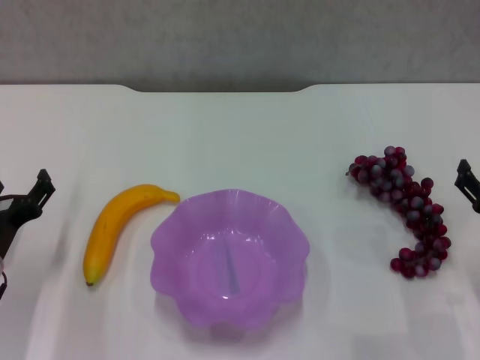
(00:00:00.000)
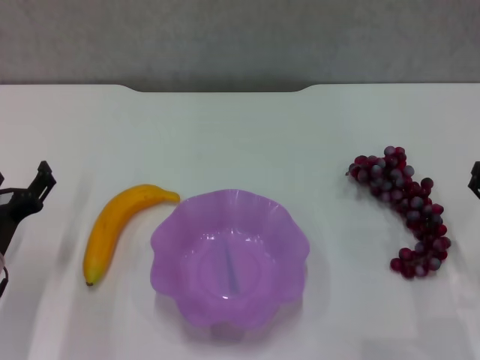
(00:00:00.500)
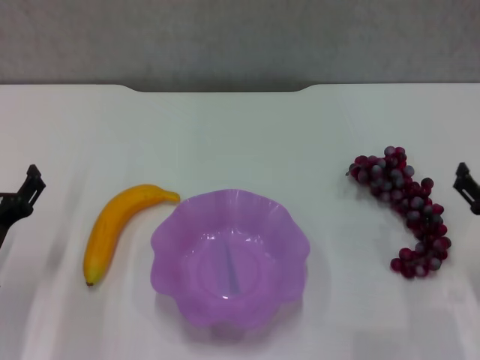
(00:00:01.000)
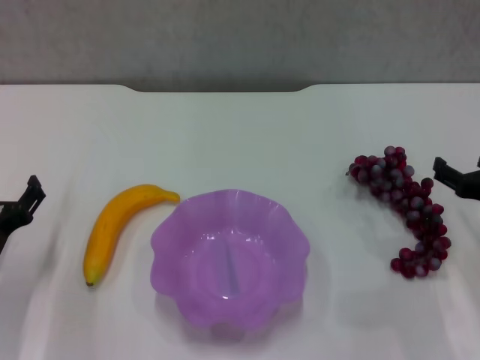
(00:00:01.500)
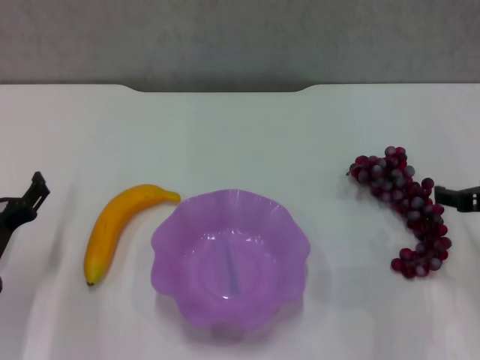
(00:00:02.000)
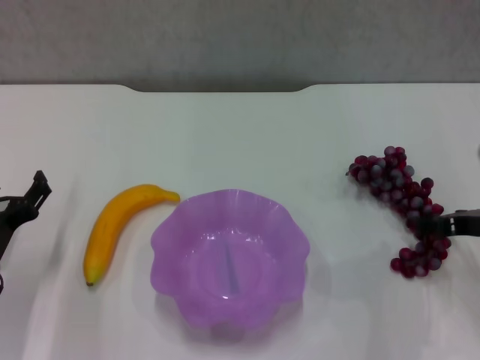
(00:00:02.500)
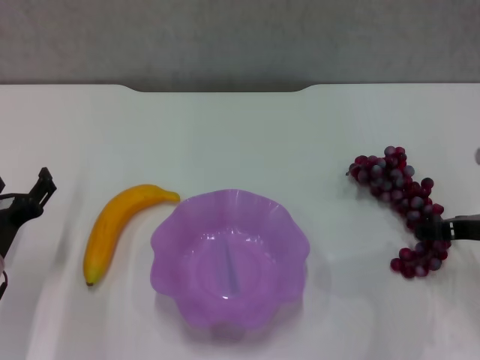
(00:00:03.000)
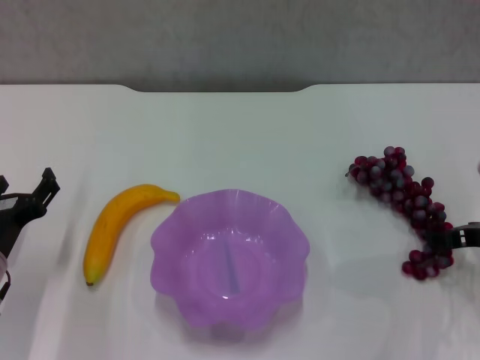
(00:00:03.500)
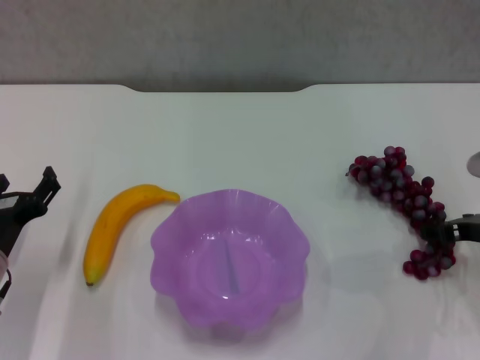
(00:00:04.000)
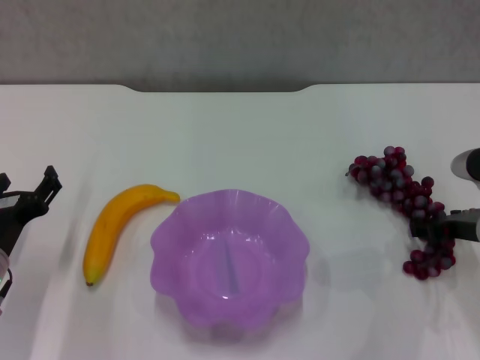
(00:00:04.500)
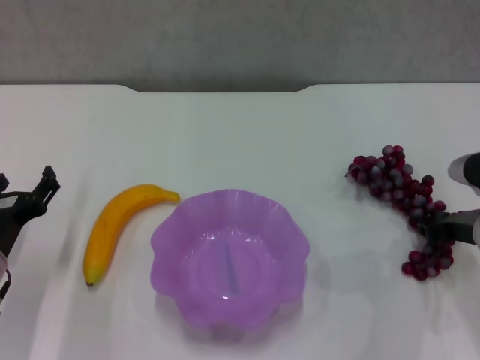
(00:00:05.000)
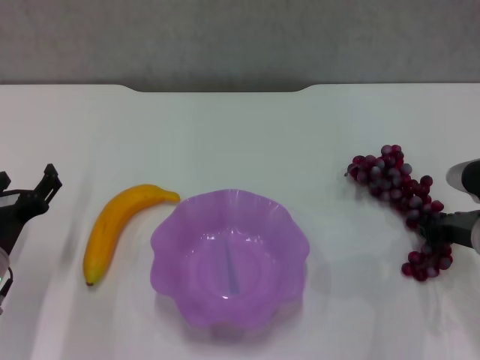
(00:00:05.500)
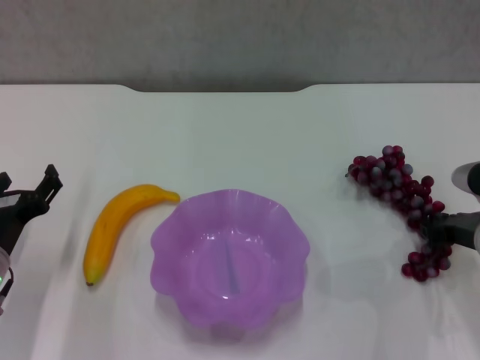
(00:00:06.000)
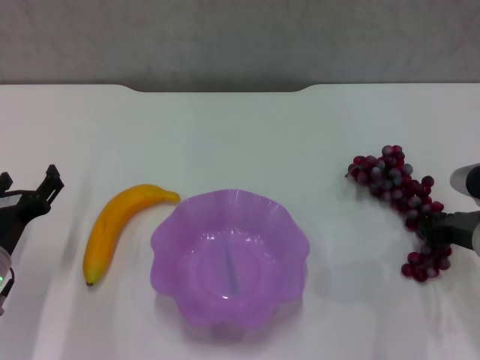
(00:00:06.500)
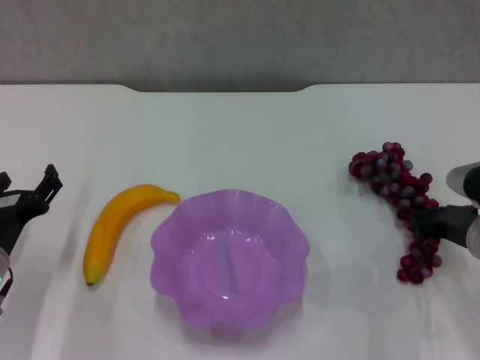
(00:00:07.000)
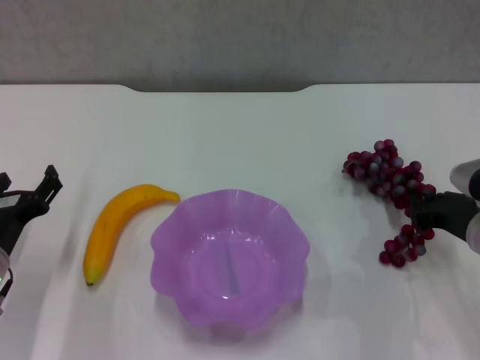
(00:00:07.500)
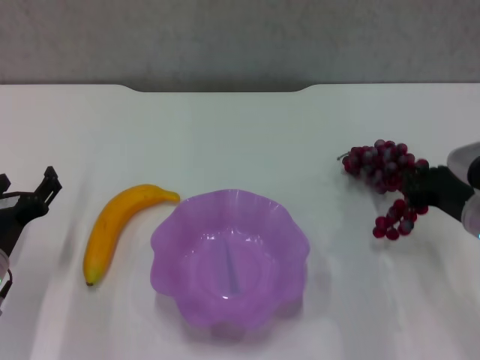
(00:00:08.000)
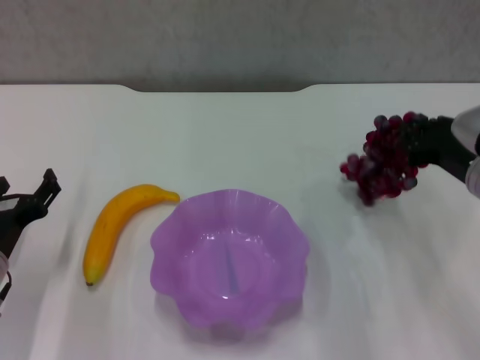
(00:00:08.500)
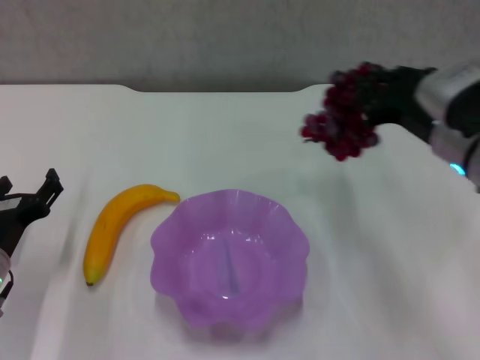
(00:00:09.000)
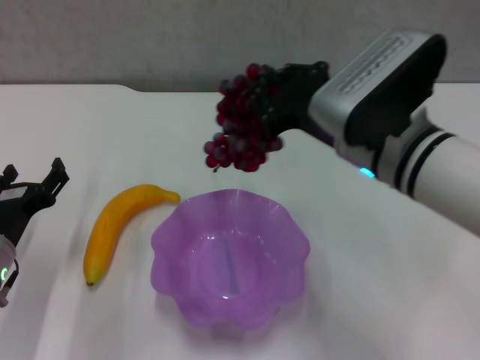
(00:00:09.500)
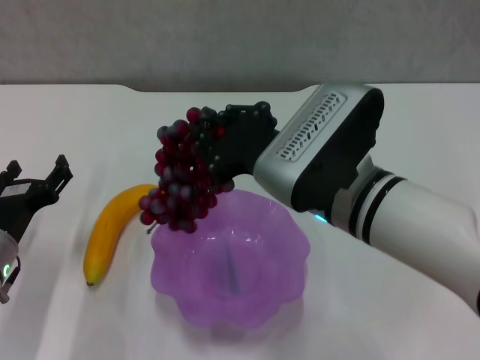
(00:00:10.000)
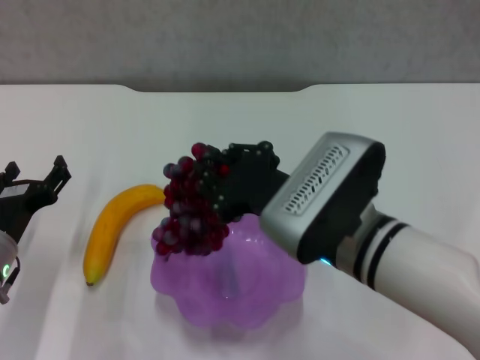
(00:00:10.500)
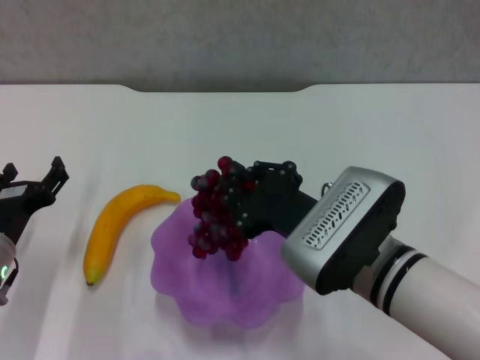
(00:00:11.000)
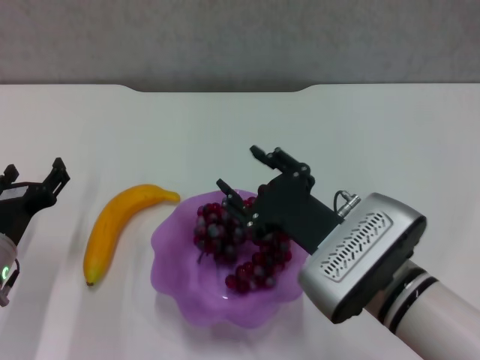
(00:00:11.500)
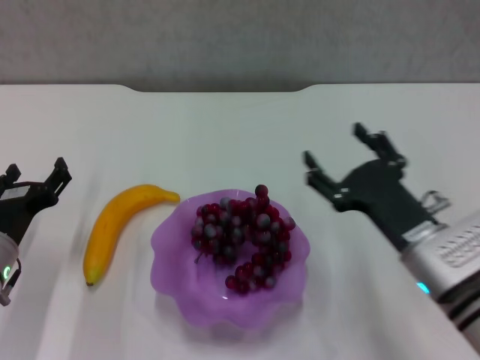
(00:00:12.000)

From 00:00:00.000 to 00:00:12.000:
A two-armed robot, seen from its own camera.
Step, from 00:00:00.000 to 00:00:06.000: Grasp the grape with right gripper.
Step, from 00:00:07.000 to 00:00:11.500: Place the grape in the purple plate with right gripper.
From 00:00:00.000 to 00:00:02.000: The right gripper shifts about 10 cm upward and forward.
From 00:00:02.000 to 00:00:04.000: The grippers move only a little.
From 00:00:04.000 to 00:00:06.000: The right gripper closes its fingers.
From 00:00:06.000 to 00:00:08.000: The grippers make only small movements.
From 00:00:08.000 to 00:00:10.000: The right gripper shifts about 20 cm to the left and upward.
From 00:00:10.000 to 00:00:12.000: The right gripper shifts about 15 cm to the right and downward, and opens its fingers.

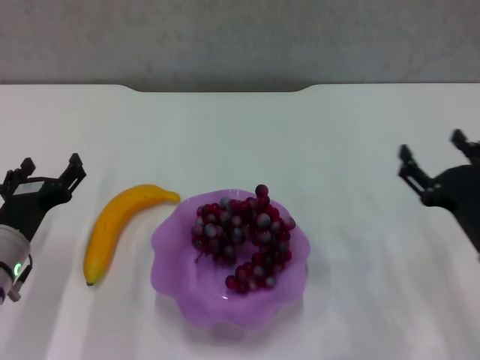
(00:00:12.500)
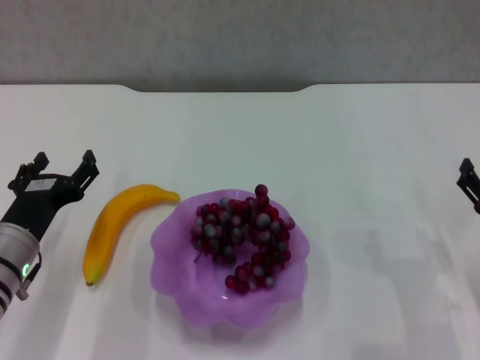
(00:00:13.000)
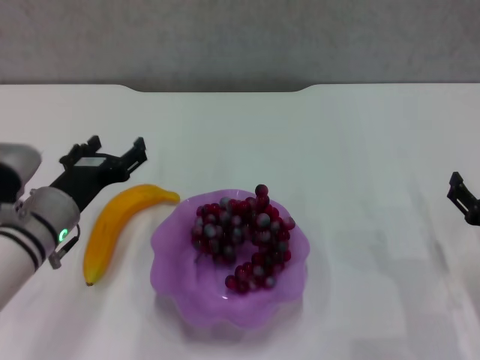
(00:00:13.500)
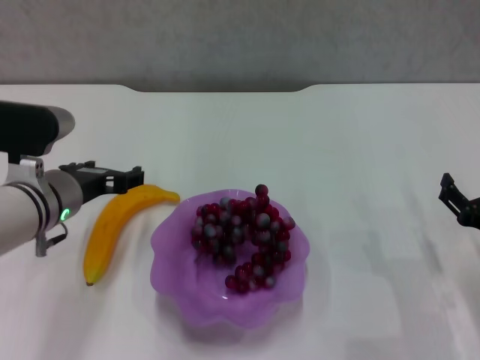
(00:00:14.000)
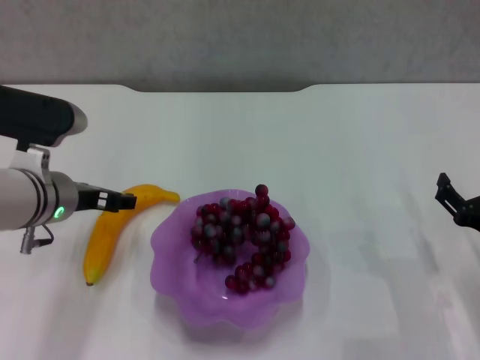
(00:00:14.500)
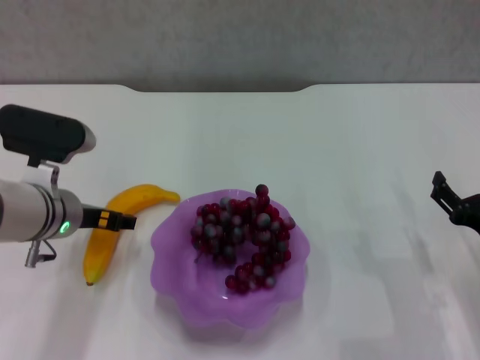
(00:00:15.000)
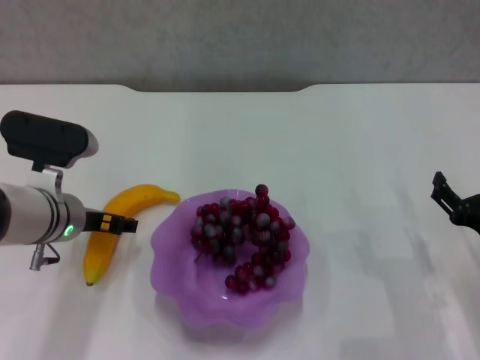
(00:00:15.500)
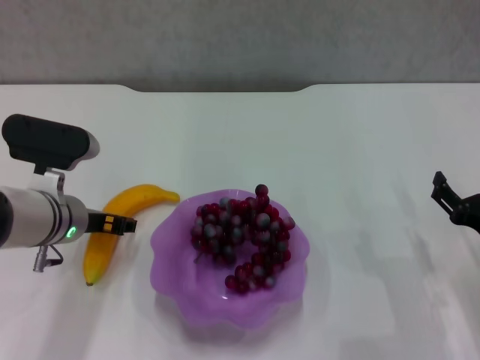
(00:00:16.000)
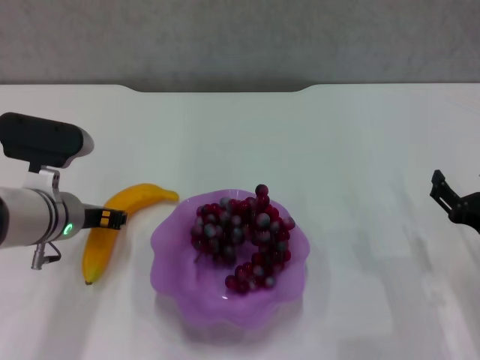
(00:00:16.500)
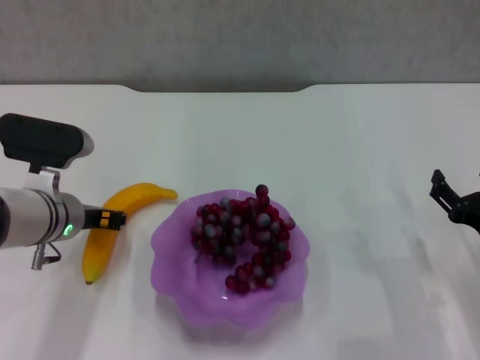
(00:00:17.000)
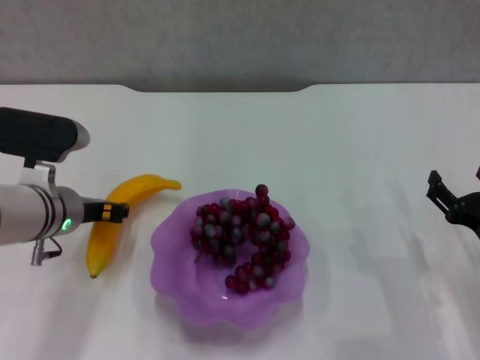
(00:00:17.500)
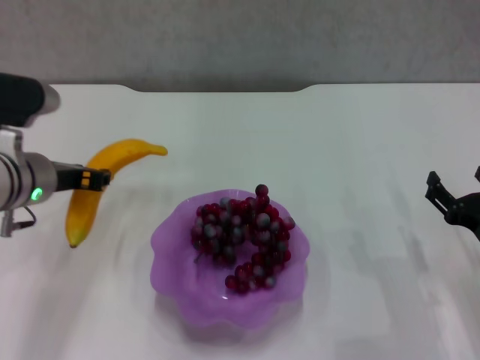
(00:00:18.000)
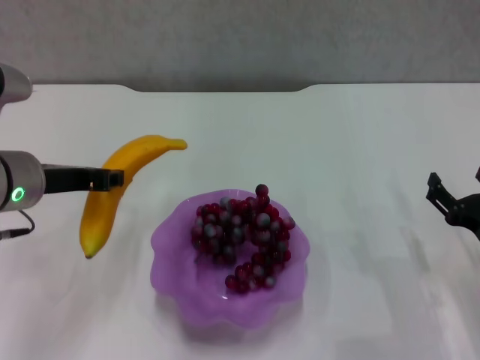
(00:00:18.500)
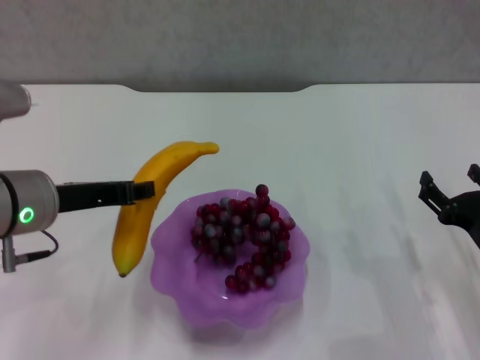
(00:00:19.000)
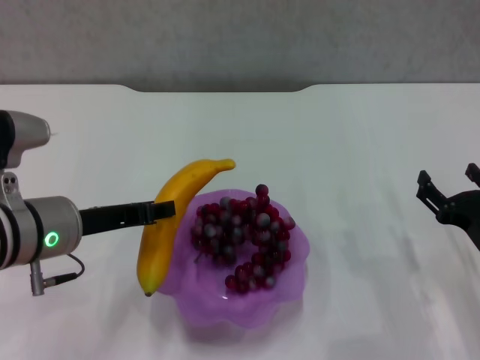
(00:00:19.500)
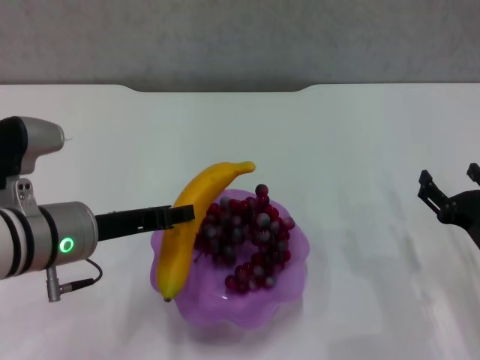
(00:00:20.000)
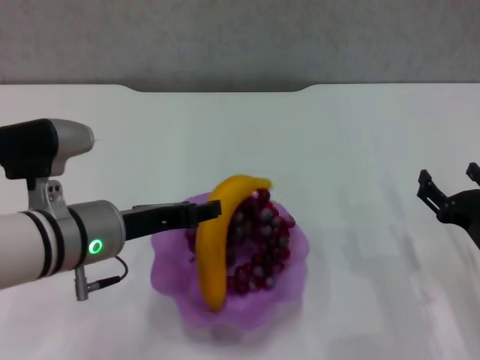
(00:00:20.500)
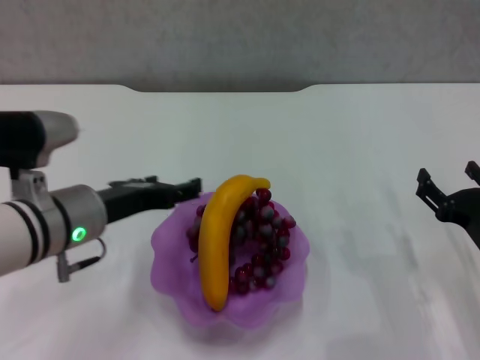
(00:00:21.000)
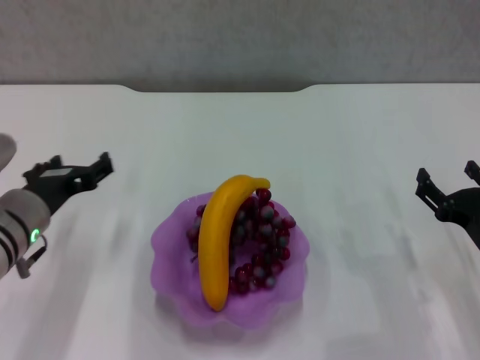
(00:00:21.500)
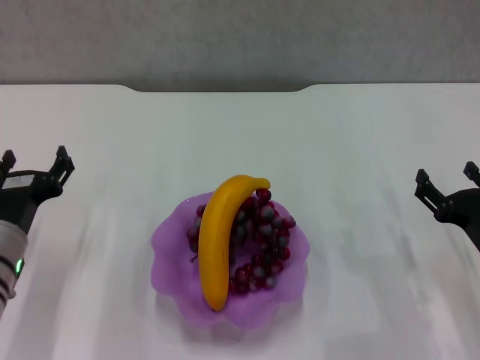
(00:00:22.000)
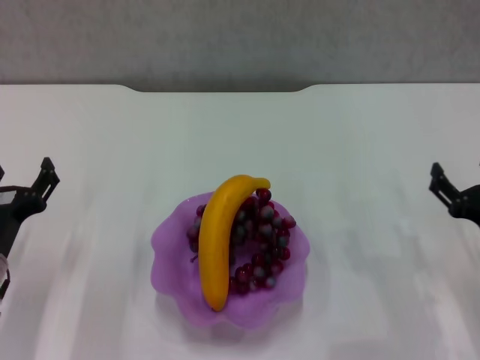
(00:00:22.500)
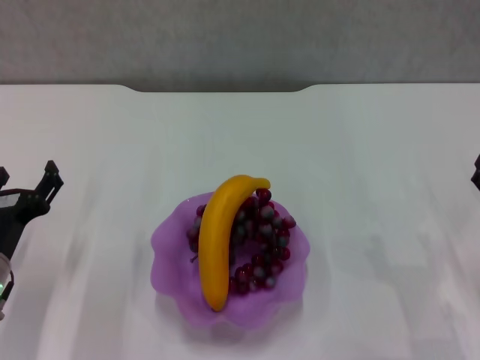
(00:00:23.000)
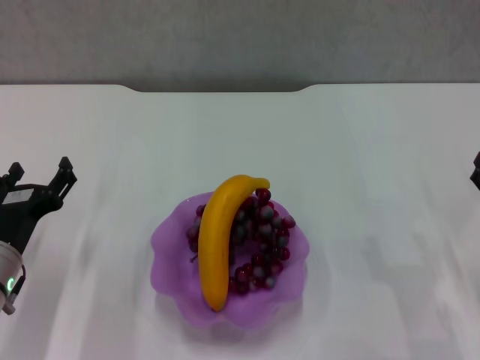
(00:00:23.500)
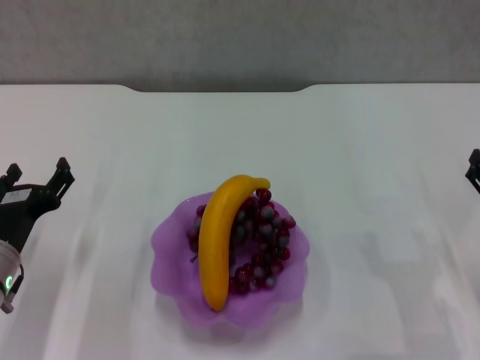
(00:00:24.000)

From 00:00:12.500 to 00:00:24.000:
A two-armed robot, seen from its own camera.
Step, from 00:00:12.500 to 00:00:16.500: Grasp the banana with left gripper.
Step, from 00:00:17.000 to 00:00:20.500: Place the banana in the purple plate with left gripper.
From 00:00:12.500 to 00:00:14.500: The left gripper goes some 10 cm upward, forward and to the right.
From 00:00:14.500 to 00:00:16.500: The left gripper closes its fingers.
From 00:00:16.500 to 00:00:18.500: The left gripper moves upward, some 10 cm.
From 00:00:18.500 to 00:00:20.000: The left gripper changes place by about 5 cm.
From 00:00:20.000 to 00:00:22.000: The left gripper is displaced downward and to the left by about 10 cm, and opens up.
From 00:00:22.000 to 00:00:24.000: There are only small adjustments of the grippers.
